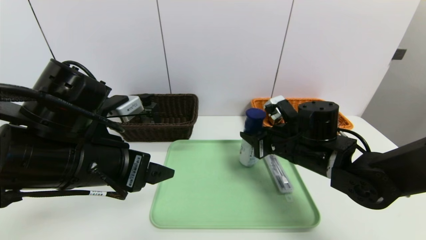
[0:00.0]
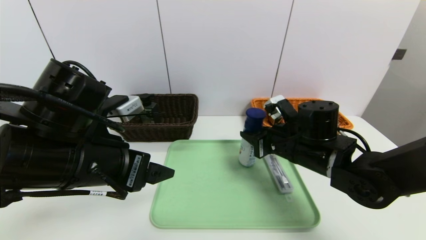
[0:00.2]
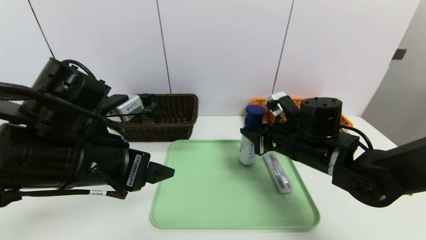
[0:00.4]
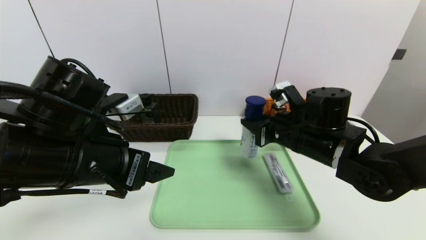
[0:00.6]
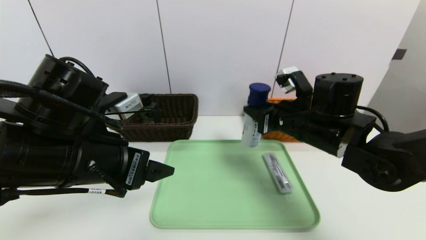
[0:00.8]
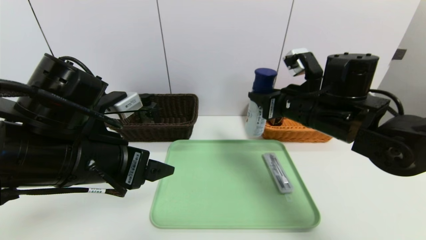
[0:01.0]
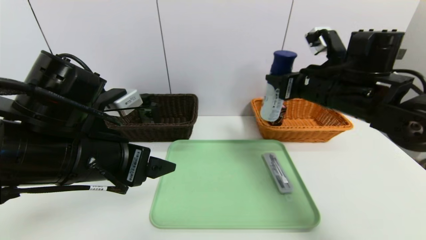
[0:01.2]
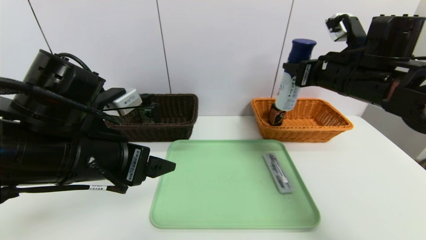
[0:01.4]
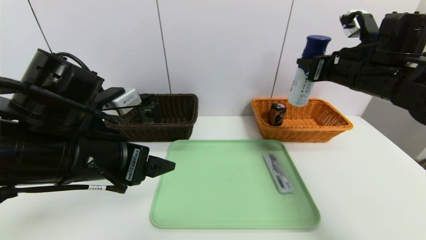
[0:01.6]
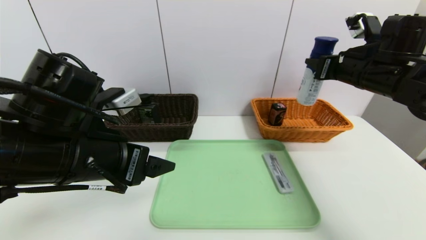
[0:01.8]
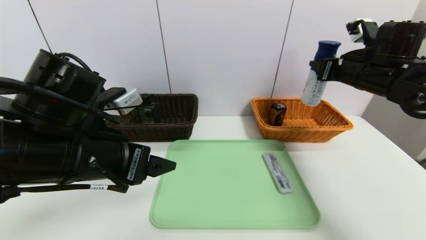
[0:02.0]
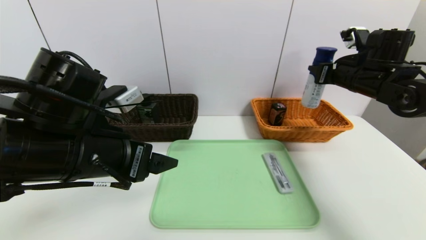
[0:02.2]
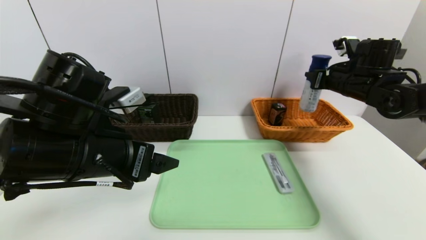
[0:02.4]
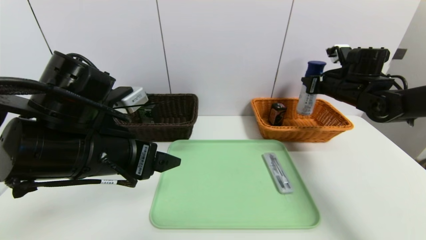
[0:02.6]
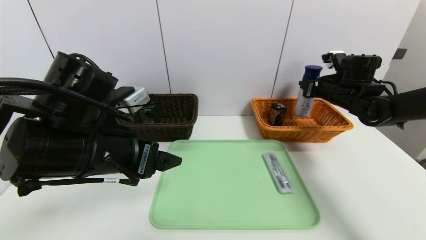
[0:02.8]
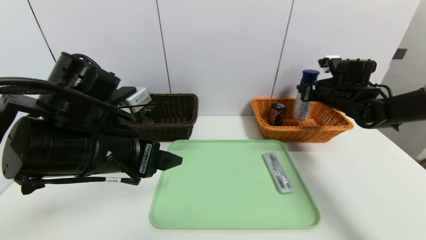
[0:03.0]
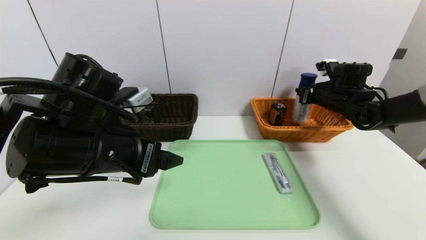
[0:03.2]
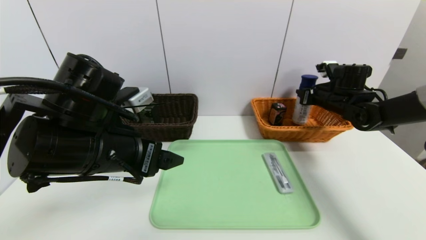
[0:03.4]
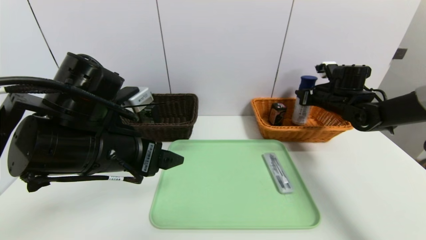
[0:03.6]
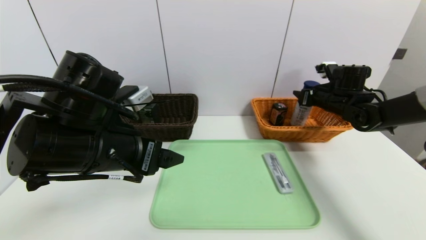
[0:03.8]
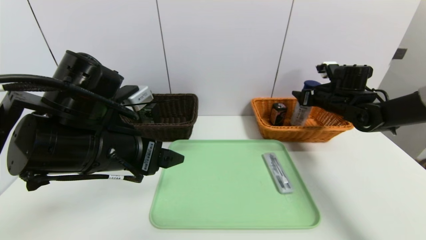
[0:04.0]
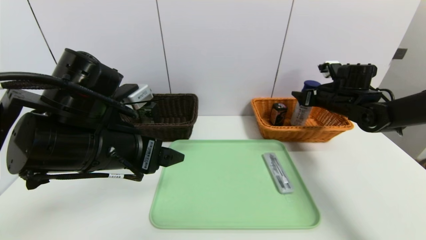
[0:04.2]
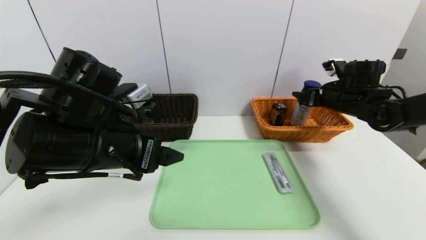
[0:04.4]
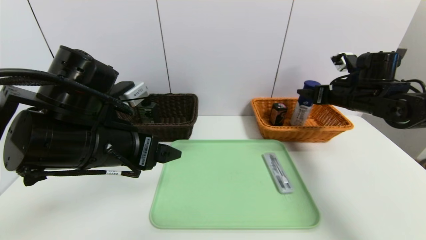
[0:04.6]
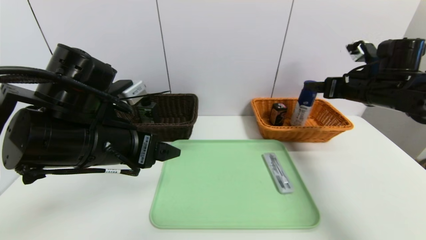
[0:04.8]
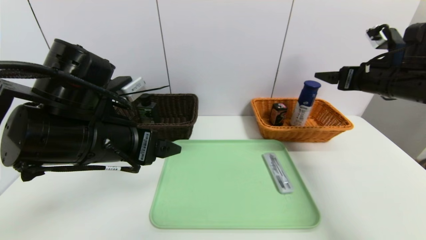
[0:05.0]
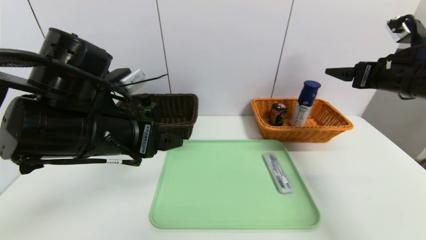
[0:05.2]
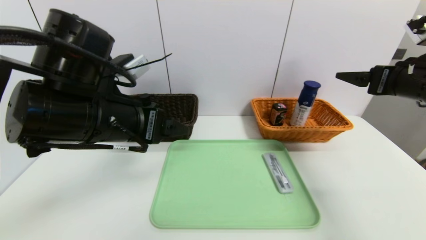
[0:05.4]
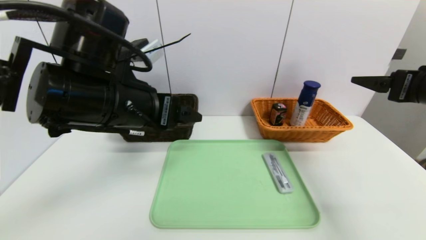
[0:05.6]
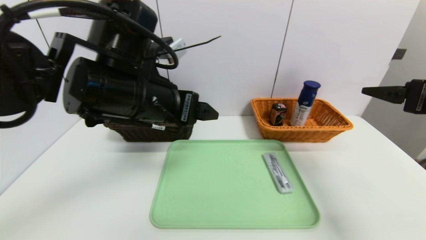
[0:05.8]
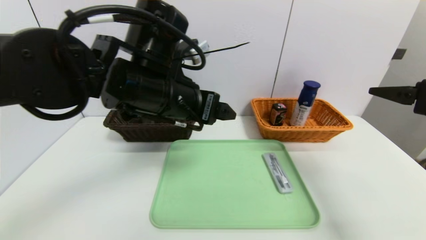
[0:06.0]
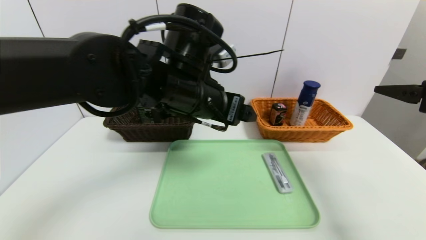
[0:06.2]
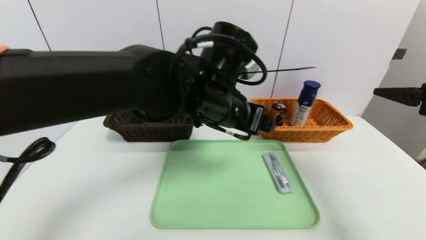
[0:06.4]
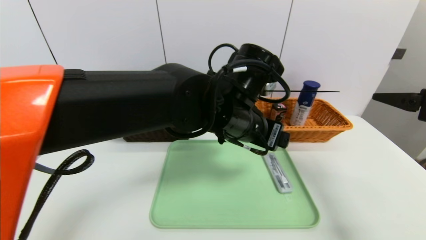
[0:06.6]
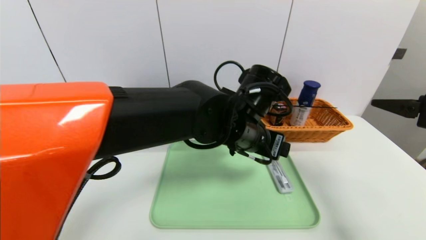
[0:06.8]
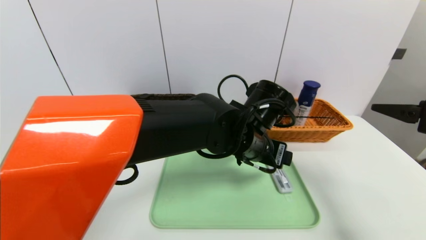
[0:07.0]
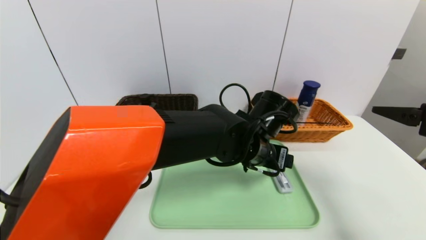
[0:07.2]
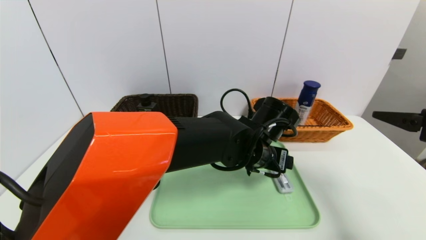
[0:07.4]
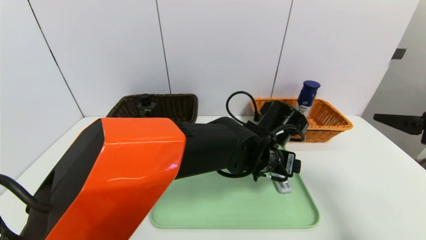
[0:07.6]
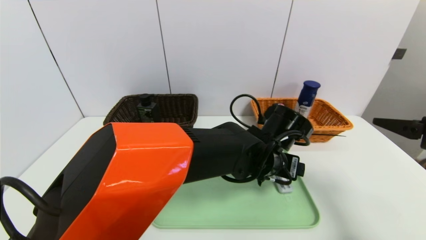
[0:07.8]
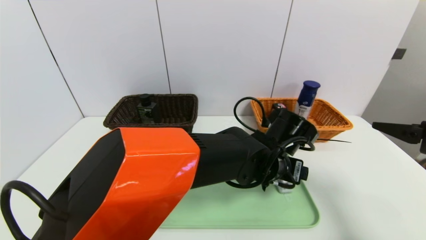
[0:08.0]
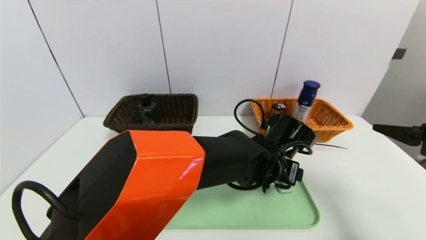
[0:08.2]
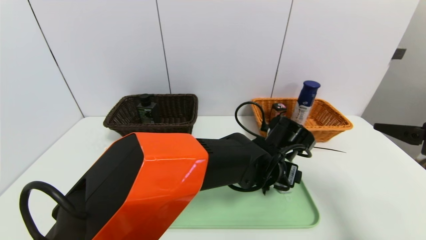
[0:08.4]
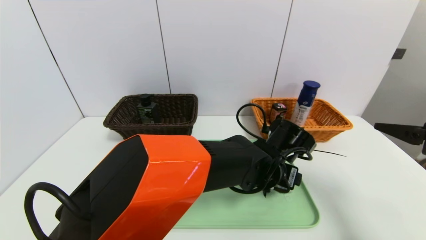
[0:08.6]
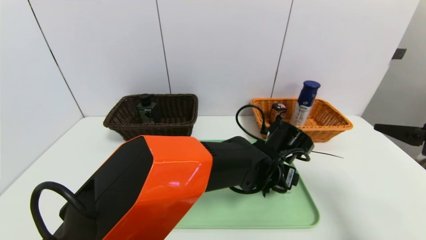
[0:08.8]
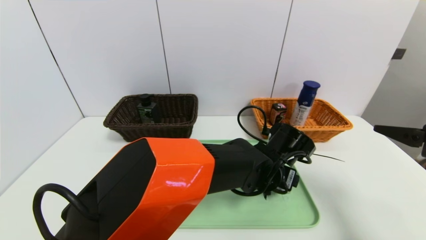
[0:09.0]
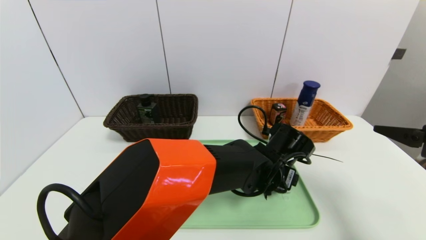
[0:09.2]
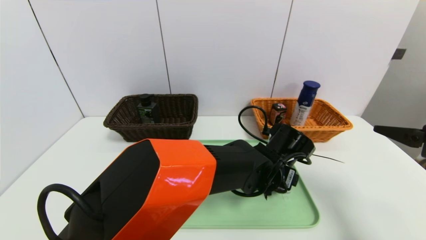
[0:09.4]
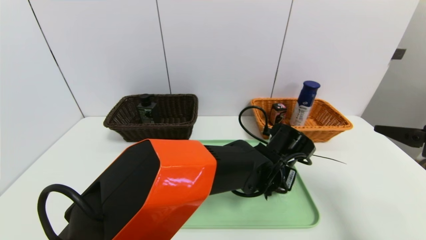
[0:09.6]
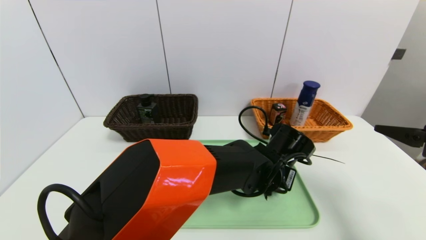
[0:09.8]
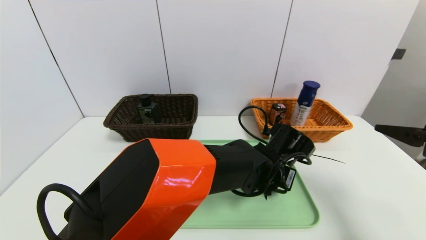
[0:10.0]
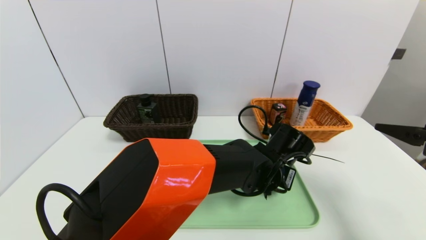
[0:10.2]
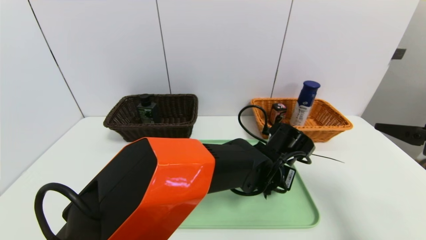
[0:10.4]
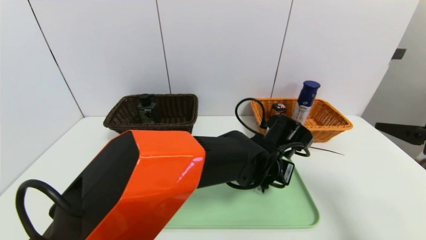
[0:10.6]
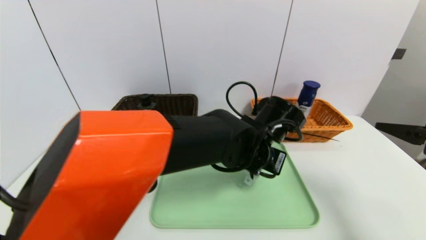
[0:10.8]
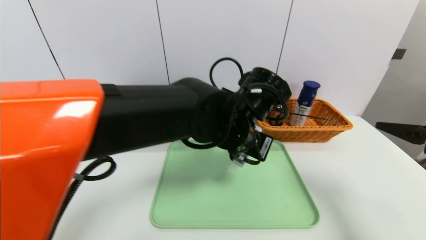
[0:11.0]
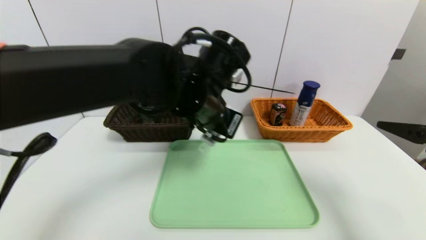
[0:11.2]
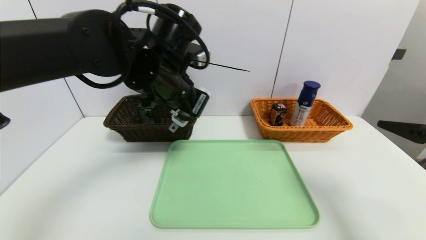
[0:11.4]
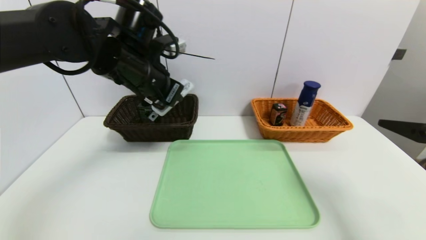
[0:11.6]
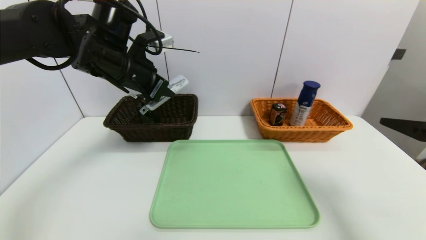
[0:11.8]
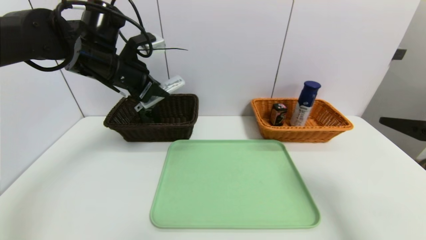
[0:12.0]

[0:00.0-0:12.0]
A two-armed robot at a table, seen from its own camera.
Task of the whole recording: place the food in the right basket with the right gripper, and place the non food items in the left basket with the left gripper.
Step, 0:00.0 to 0:04.6: Grasp the yogurt and put it in the right basket.
0:00.0 to 0:01.6: The right gripper shifts roughly 15 cm upward and to the right.
0:01.6 to 0:03.0: The right gripper is displaced forward, downward and to the right by about 15 cm.
0:03.0 to 0:04.4: The right gripper opens.
0:04.4 to 0:06.0: The right gripper goes about 25 cm backward and upward. Meanwhile the left gripper goes about 10 cm to the right and forward.
0:06.0 to 0:07.6: The left gripper heads to the right and downward, covering some 20 cm.
0:09.0 to 0:10.4: The left gripper closes.
0:10.4 to 0:12.0: The left gripper shifts approximately 35 cm to the left and upward.

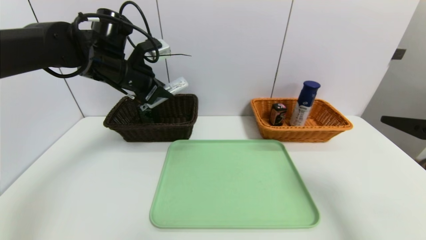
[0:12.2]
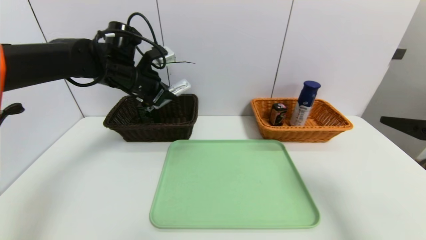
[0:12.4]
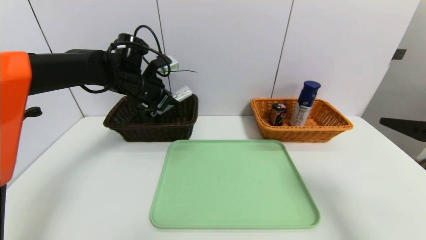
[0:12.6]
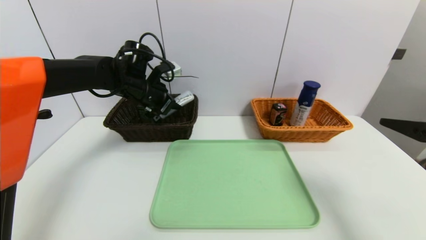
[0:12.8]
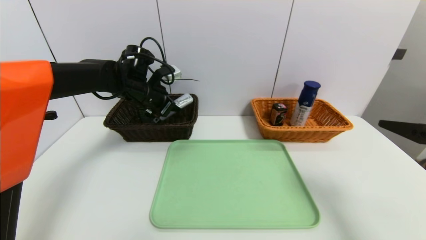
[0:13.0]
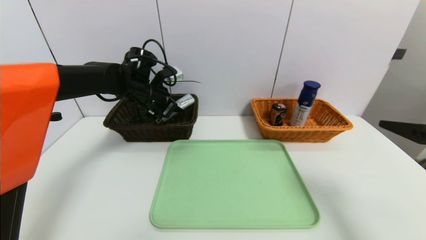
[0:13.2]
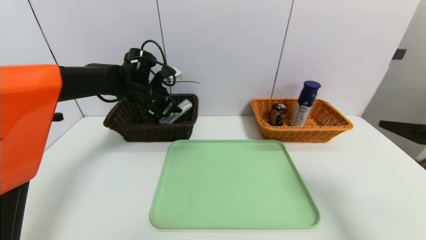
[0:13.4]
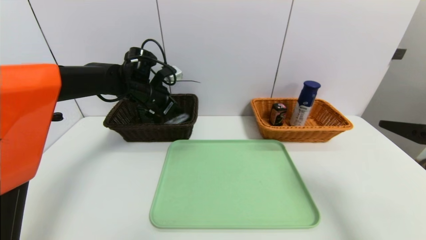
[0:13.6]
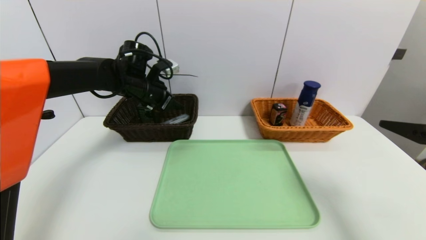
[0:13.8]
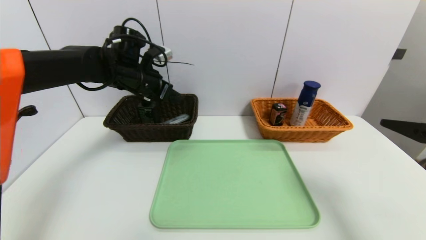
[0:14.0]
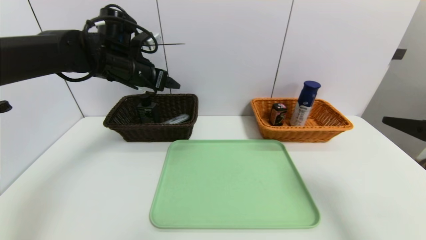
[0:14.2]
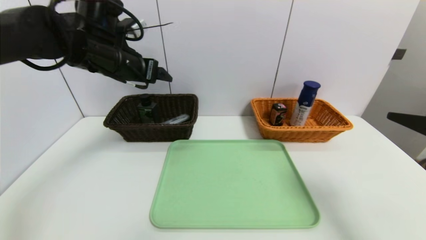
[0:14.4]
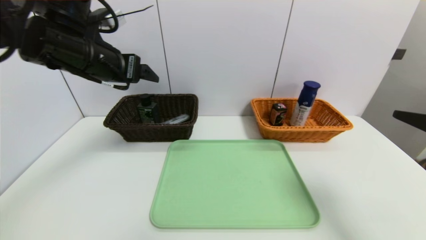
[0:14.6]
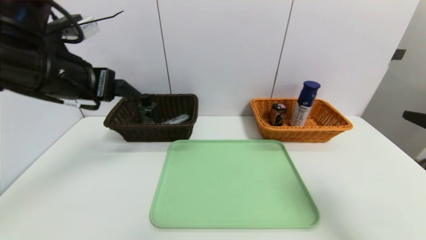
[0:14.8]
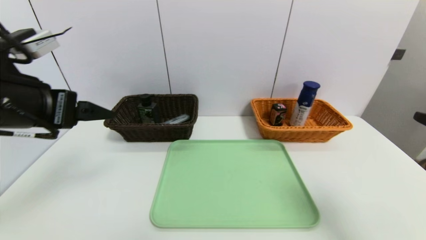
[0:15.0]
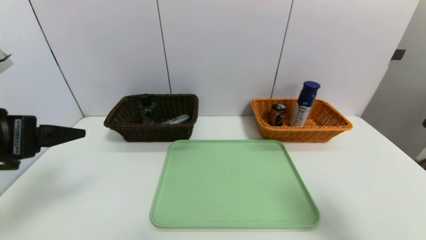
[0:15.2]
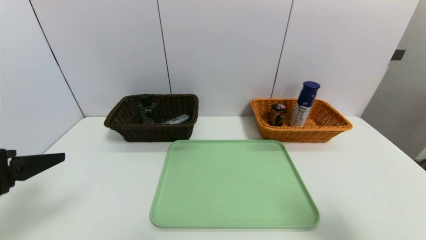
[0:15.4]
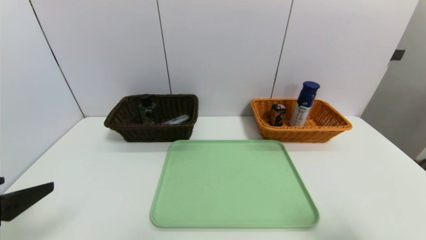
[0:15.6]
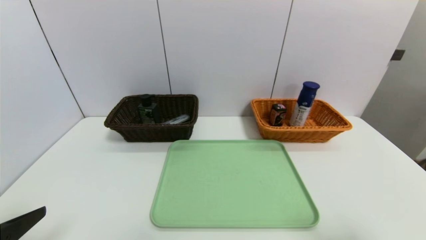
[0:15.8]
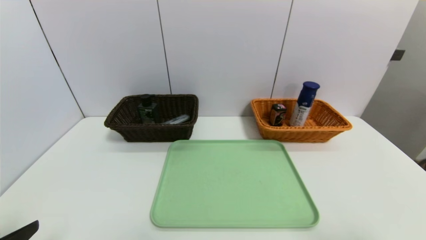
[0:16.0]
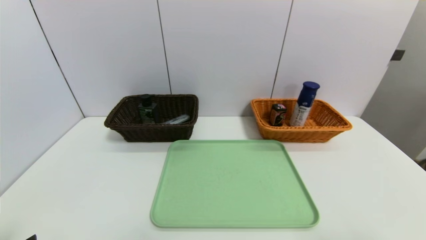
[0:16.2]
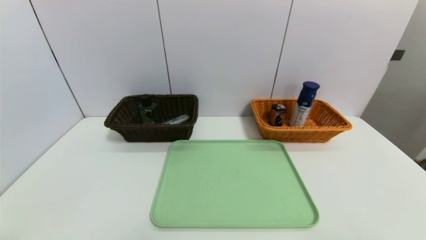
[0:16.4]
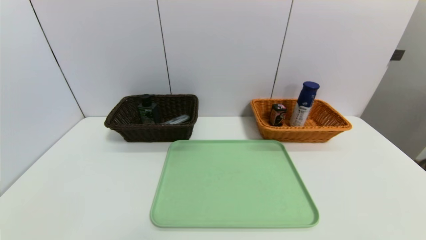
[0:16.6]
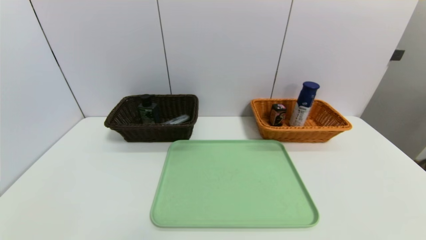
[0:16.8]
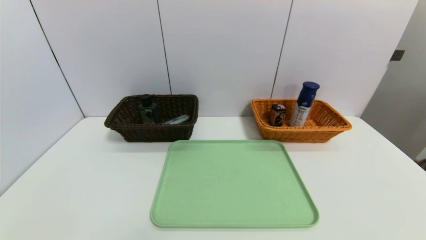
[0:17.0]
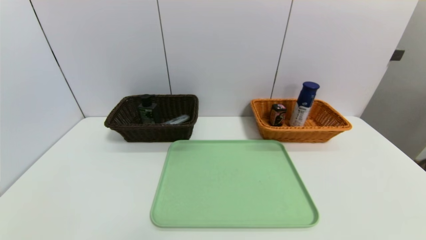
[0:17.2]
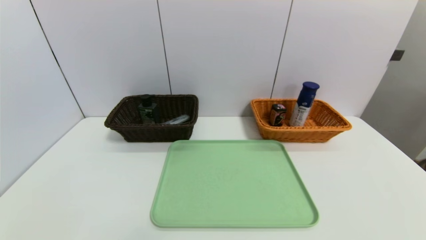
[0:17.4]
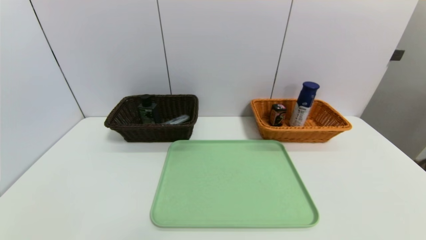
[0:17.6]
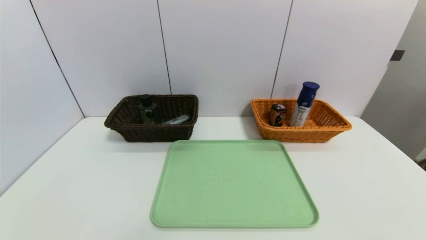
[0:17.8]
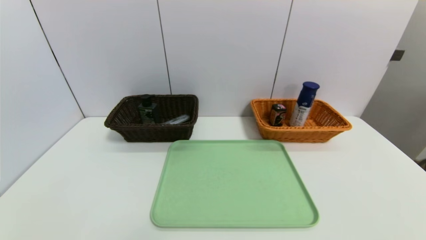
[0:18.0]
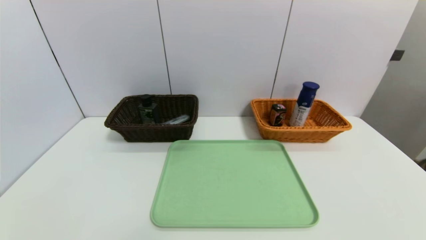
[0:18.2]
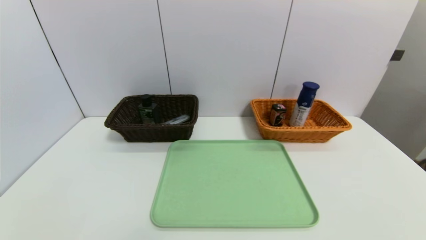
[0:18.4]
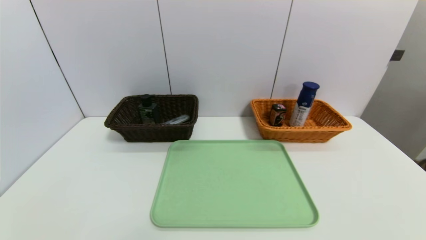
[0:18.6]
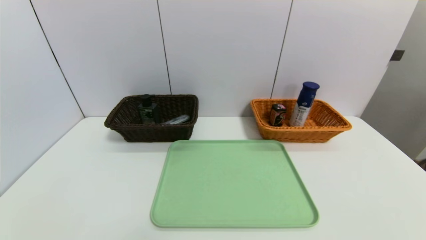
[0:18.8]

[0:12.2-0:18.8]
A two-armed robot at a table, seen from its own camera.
Task of the whole recording: place the food in the right basket with the right gripper, and place the non food items in the left basket with the left gripper.
0:12.2 to 0:13.8: The left gripper heads forward and downward, covering roughly 10 cm, and opens.
0:13.8 to 0:15.4: The right gripper shifts some 10 cm backward; the left gripper moves backward, about 35 cm.
0:15.4 to 0:17.2: The left gripper is displaced downward and backward by roughly 20 cm; the right gripper travels backward and downward by about 10 cm.
